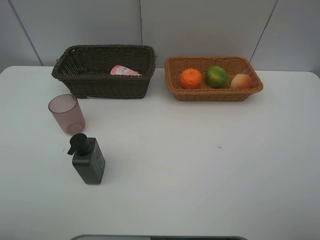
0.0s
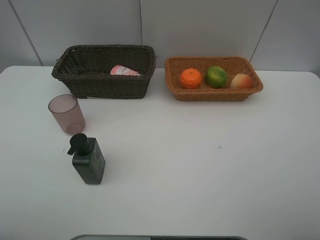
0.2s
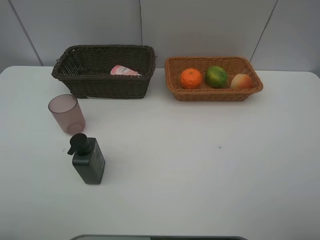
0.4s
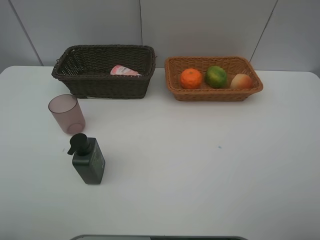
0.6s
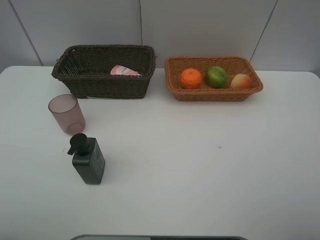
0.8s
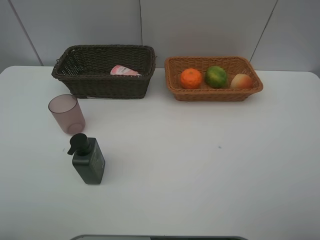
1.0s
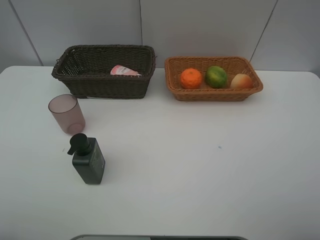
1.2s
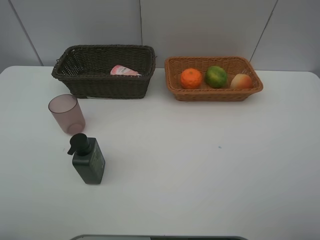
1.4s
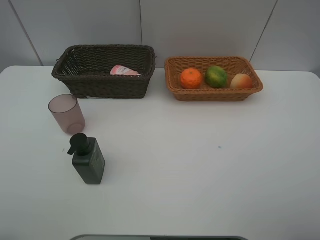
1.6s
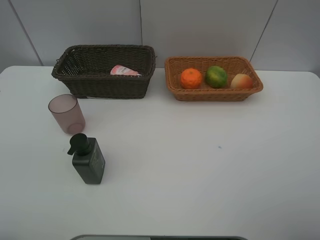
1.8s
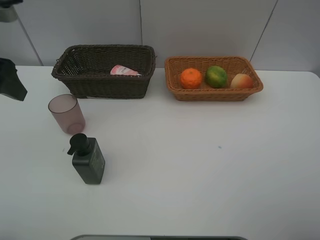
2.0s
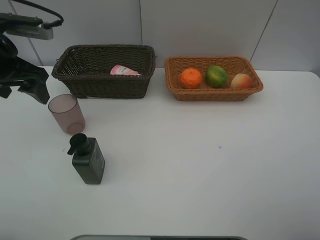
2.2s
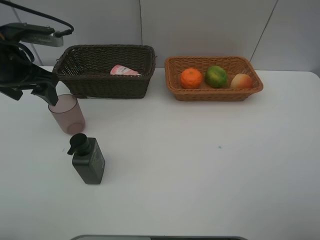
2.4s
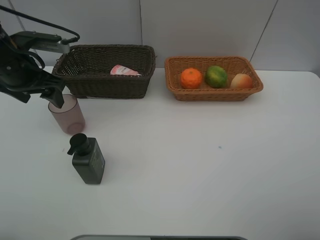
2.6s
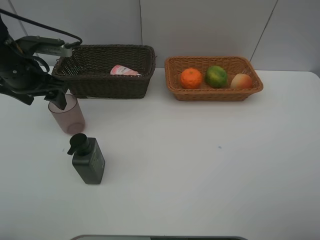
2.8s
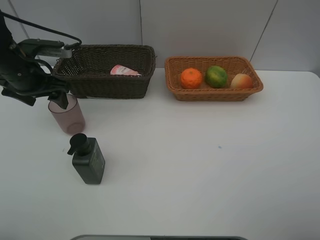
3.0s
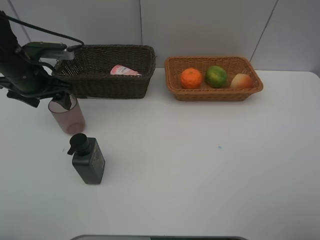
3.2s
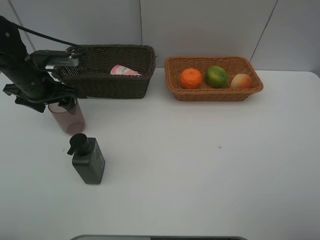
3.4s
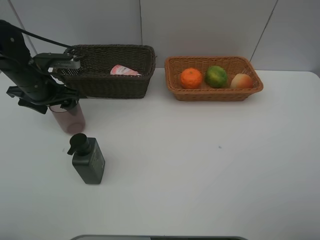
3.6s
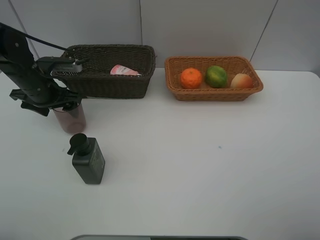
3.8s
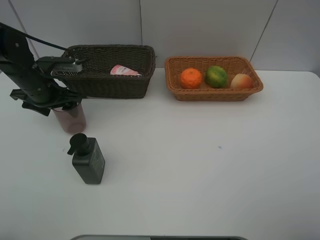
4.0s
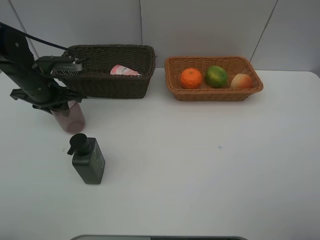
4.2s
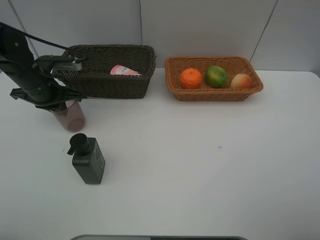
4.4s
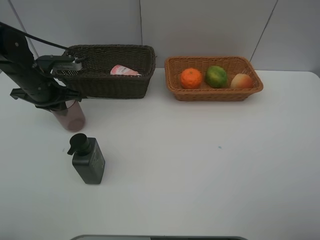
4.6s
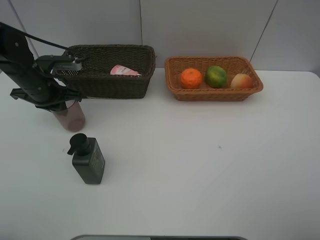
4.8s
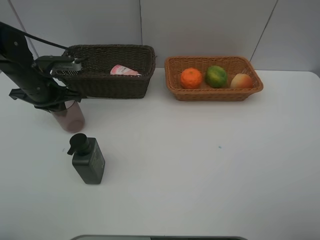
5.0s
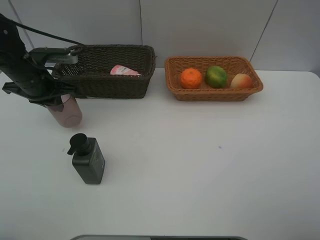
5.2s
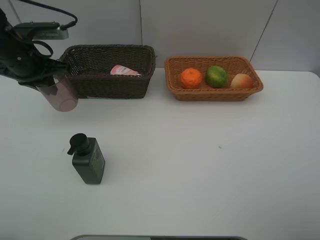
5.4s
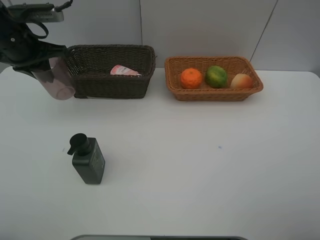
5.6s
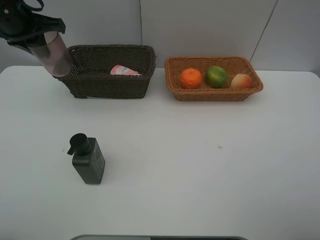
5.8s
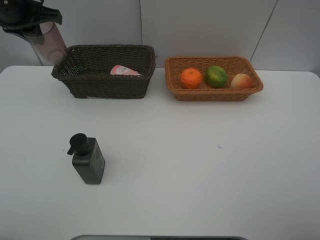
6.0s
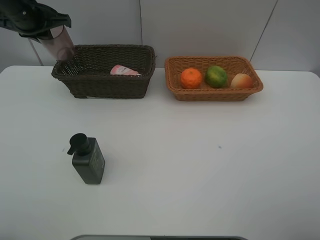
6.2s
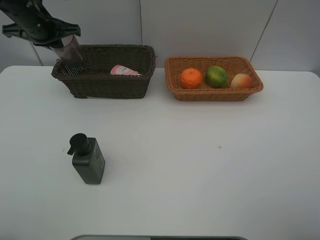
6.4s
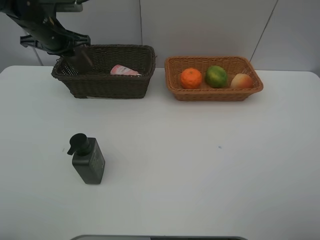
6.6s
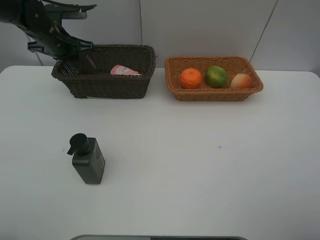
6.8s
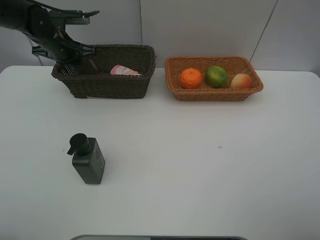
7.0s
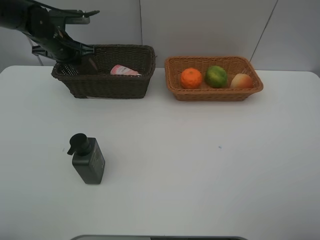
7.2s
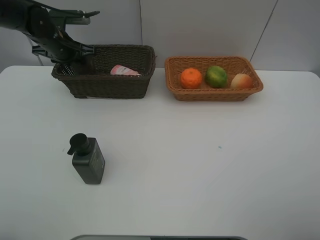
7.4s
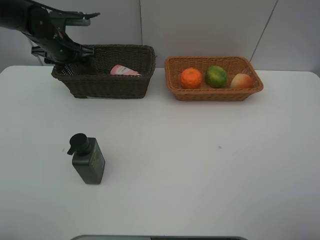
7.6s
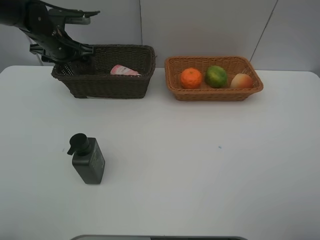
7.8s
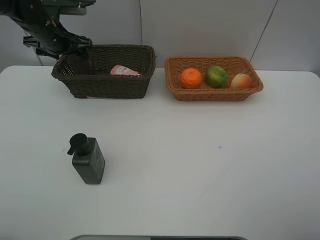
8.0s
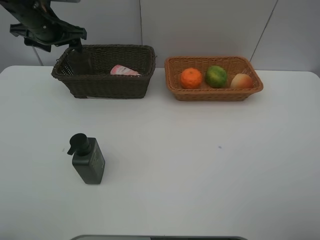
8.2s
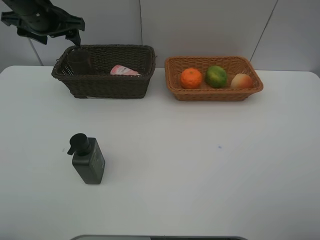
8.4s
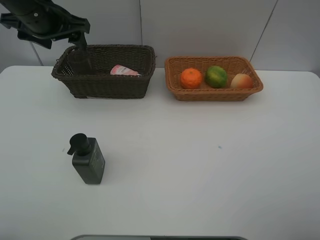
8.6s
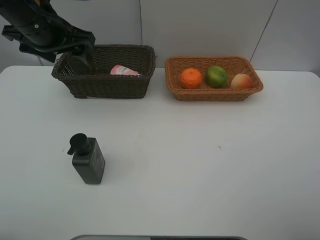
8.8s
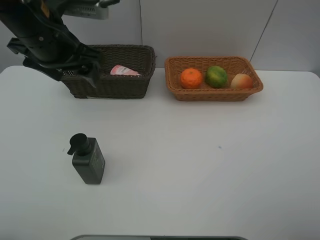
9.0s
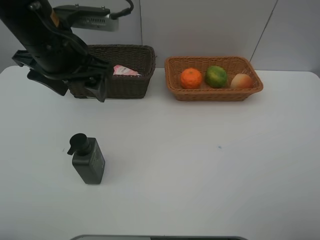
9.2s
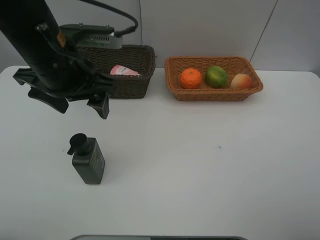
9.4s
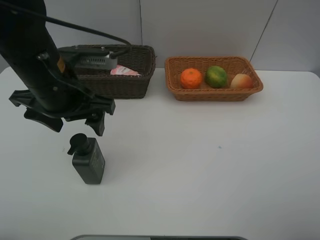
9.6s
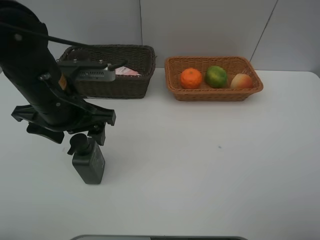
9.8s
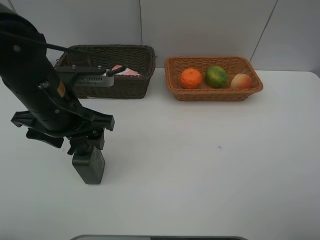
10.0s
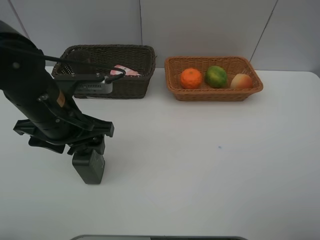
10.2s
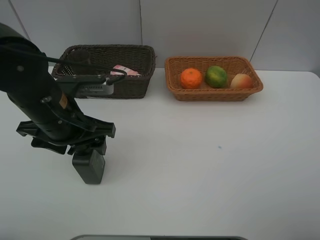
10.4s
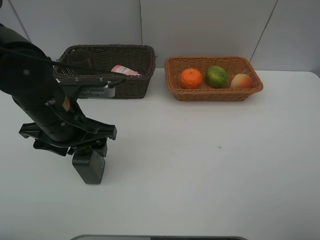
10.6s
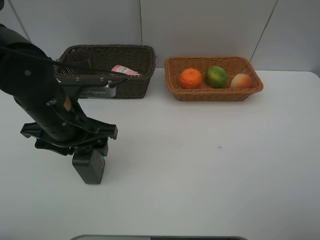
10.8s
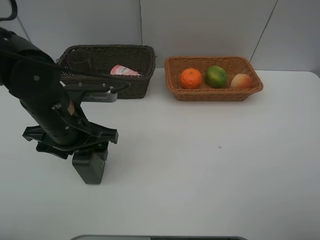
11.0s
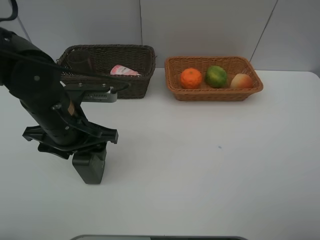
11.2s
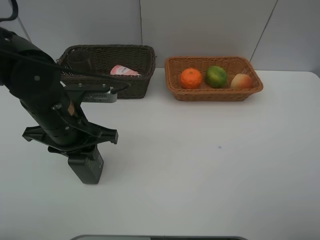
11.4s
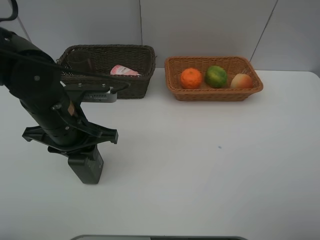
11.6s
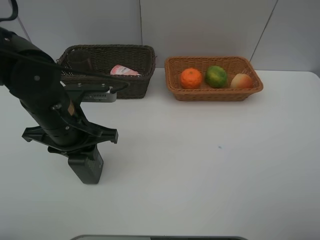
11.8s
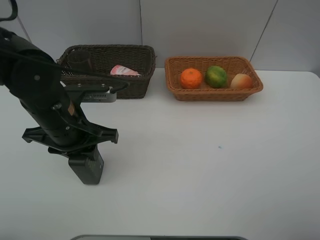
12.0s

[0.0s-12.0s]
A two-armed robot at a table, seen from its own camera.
Task of the whole recording: place multiple objects separately in different baskets.
1.6s to 3.0s: The left gripper shifts about 30 cm forward and downward.
3.0s to 4.4s: The left gripper ends up approximately 5 cm from where it was, and closes.
4.4s to 6.0s: The left gripper shifts about 15 cm upward.
6.0s to 7.6s: The left gripper heads downward and forward, covering approximately 15 cm, and opens.
7.6s to 9.0s: The left gripper travels backward, upward and to the right by some 20 cm.
9.0s to 10.4s: The left gripper shifts some 10 cm downward and backward.
10.4s to 12.0s: The left gripper closes.

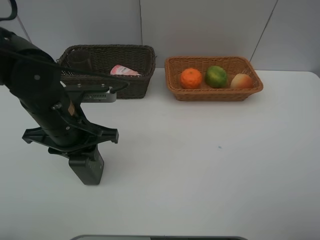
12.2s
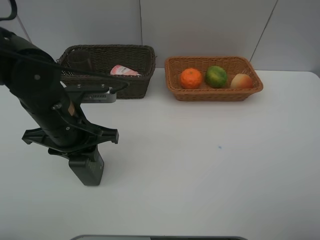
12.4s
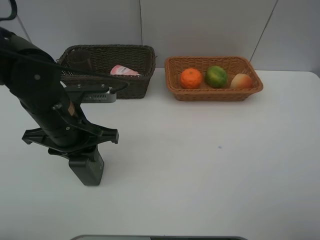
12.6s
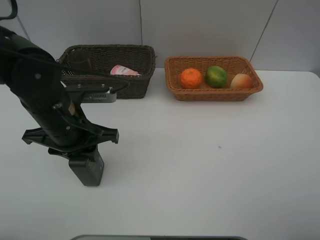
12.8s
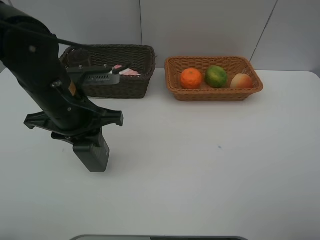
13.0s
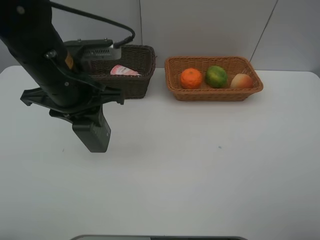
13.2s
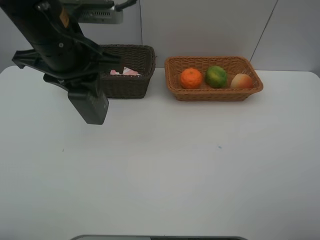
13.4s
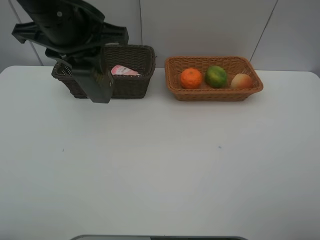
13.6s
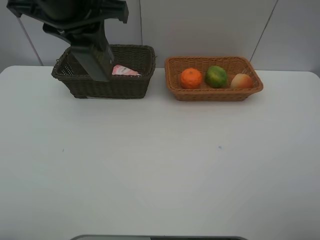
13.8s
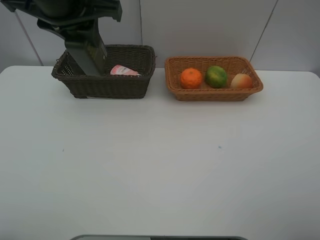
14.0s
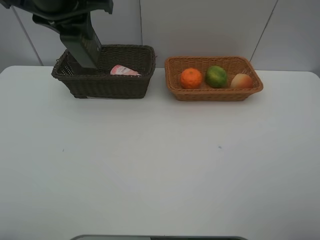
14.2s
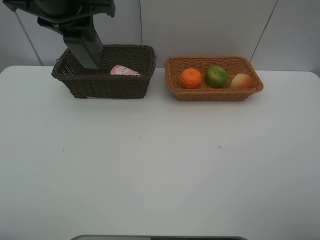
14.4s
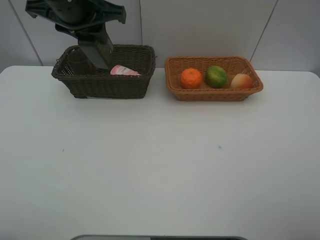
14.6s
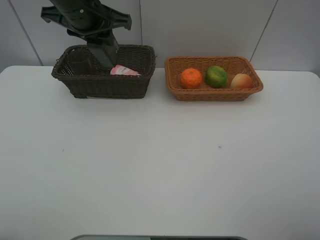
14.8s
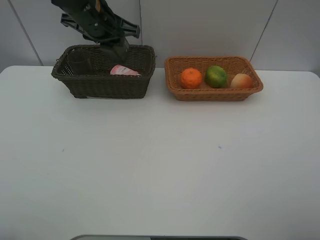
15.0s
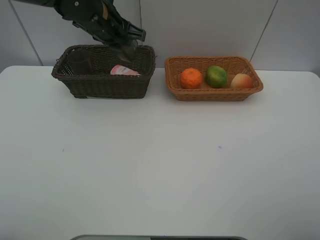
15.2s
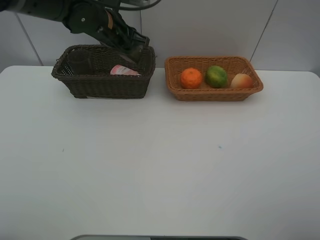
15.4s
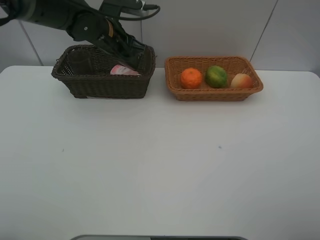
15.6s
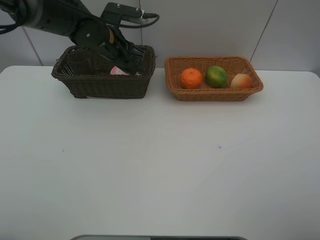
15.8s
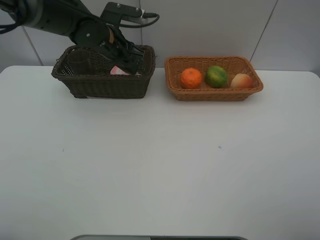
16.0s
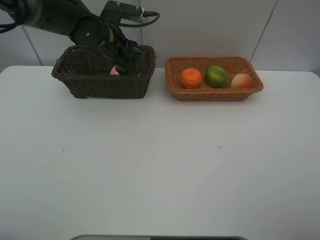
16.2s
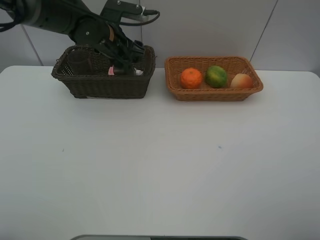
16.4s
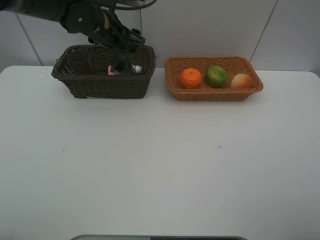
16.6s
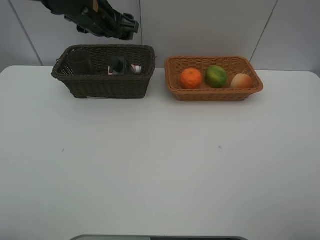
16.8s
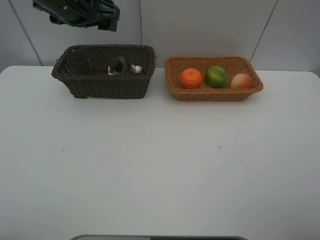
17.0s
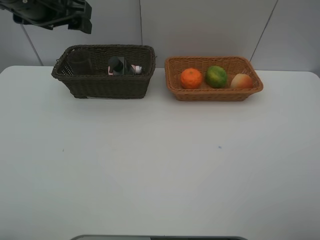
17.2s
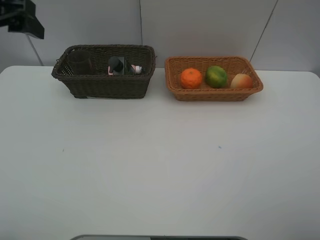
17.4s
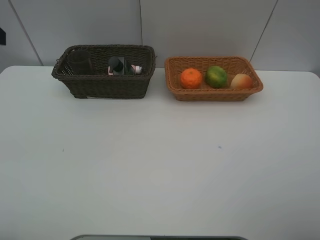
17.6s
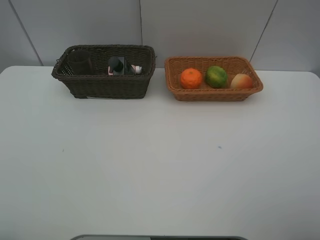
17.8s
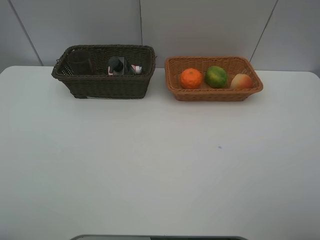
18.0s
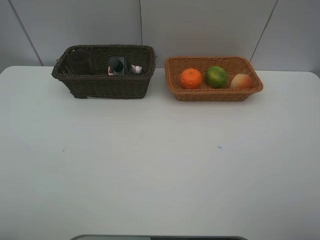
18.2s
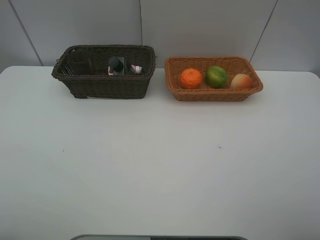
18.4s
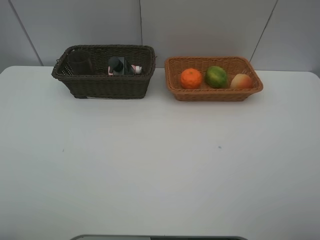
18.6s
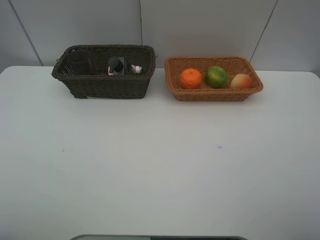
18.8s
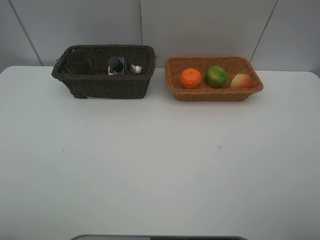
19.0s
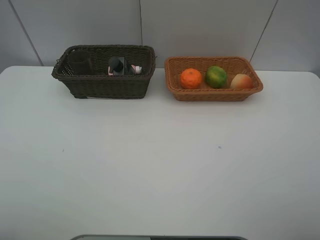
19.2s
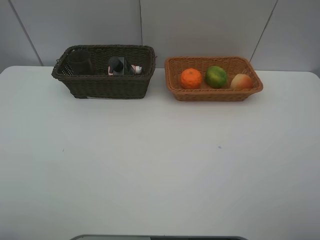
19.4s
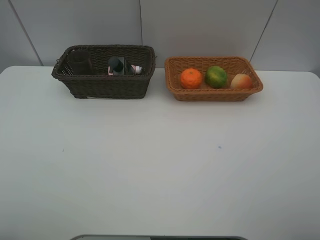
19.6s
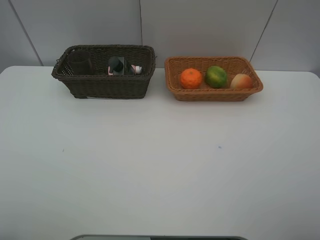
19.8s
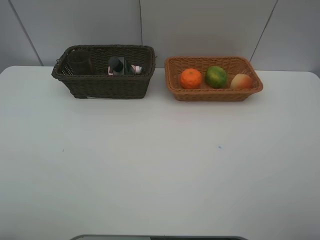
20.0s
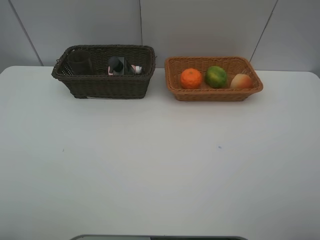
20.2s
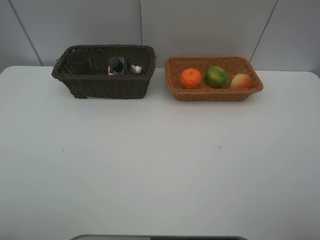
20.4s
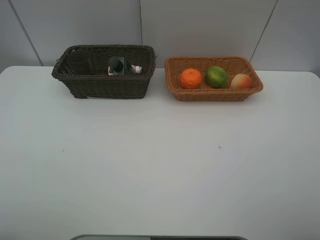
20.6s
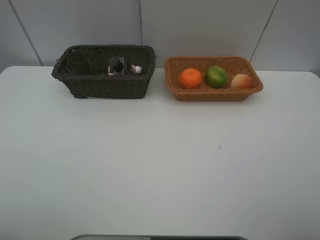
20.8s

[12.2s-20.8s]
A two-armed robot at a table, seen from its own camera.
Task of the whole recording: place multiple objects separately in different baskets.
12.2s to 13.6s: The left gripper heads upward, covering about 15 cm.
13.6s to 15.0s: The left gripper shifts approximately 15 cm forward and downward.
15.0s to 16.6s: The left gripper opens up.
16.6s to 18.0s: The left gripper travels backward and to the left by approximately 40 cm.

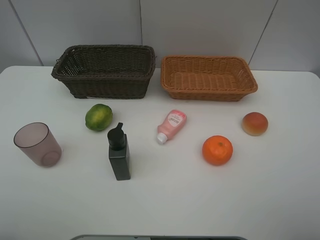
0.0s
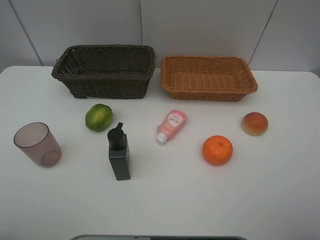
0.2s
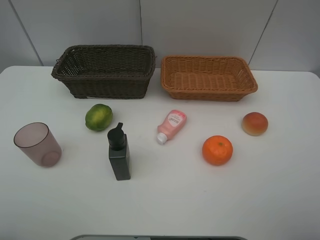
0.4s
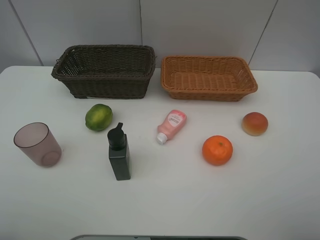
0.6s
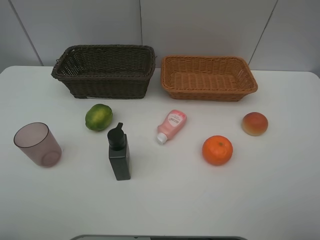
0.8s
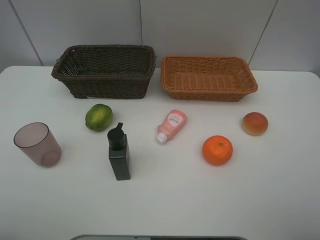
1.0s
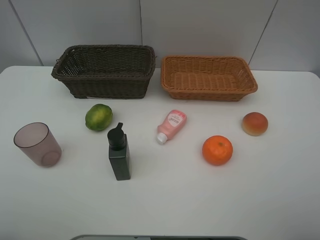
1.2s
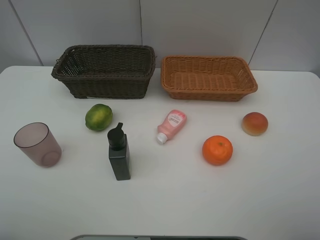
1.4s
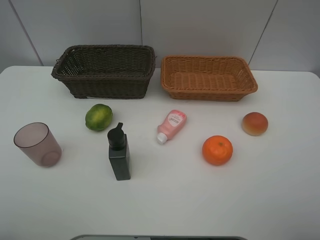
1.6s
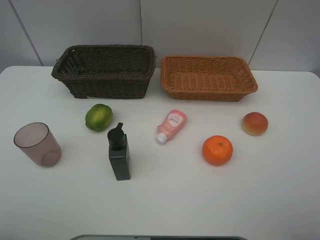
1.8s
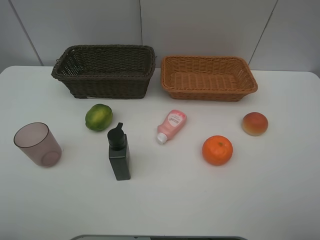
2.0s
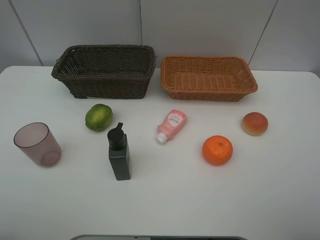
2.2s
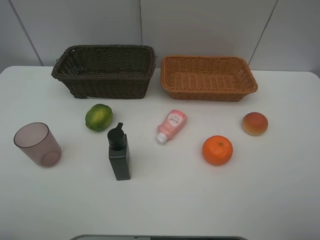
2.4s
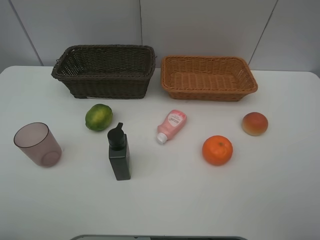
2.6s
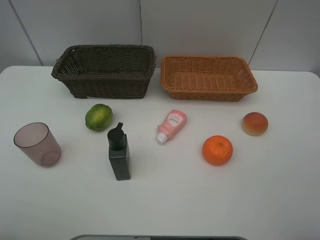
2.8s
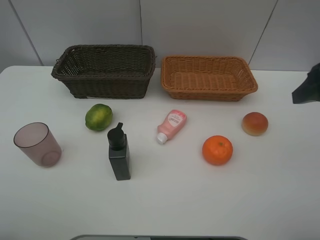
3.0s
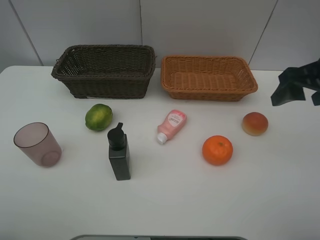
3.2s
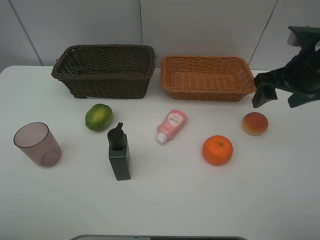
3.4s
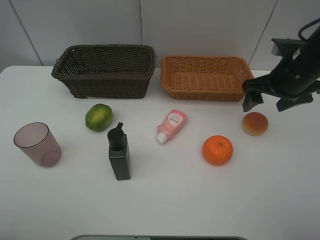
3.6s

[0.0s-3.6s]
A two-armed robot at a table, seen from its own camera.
Task of the whole recording: place multiple objects separately in different baskets.
0.0s to 1.8s: Both grippers stay about where they are.
1.8s to 3.6s: The right gripper goes approximately 30 cm forward.
